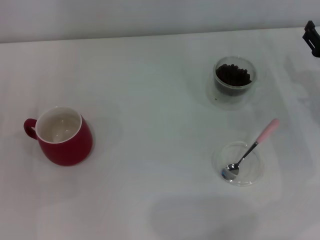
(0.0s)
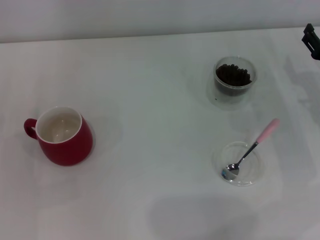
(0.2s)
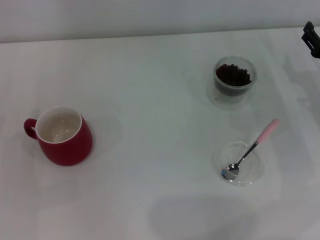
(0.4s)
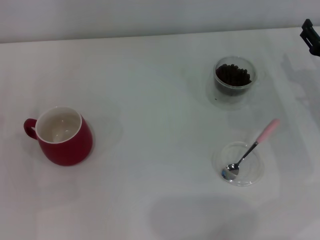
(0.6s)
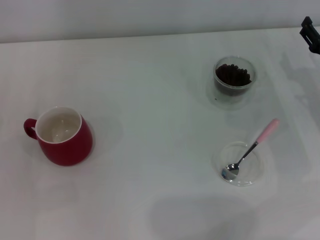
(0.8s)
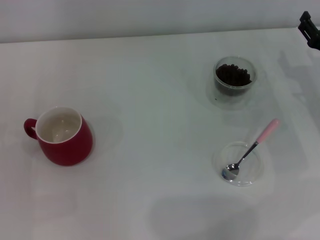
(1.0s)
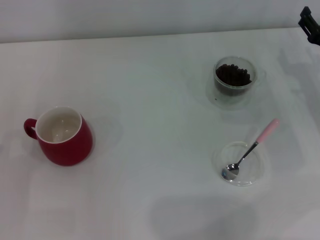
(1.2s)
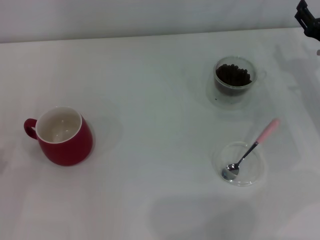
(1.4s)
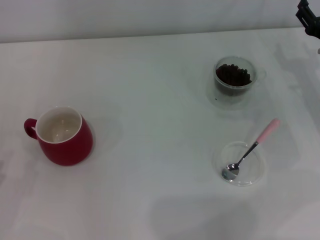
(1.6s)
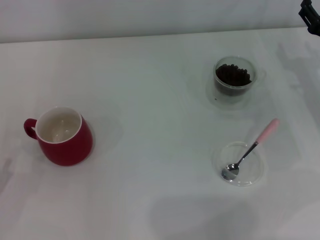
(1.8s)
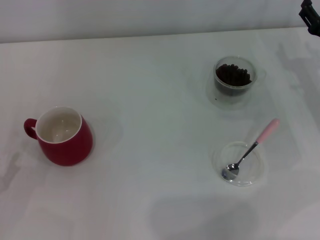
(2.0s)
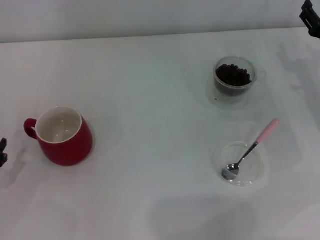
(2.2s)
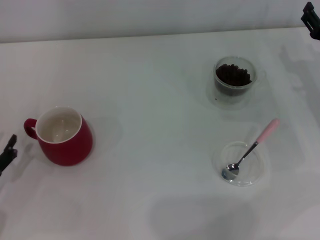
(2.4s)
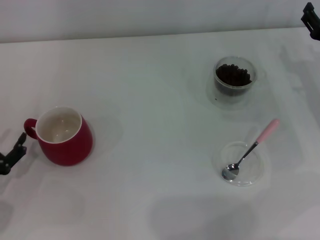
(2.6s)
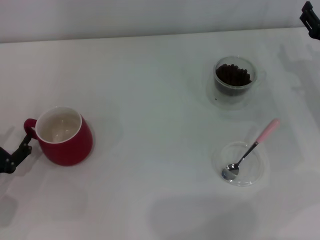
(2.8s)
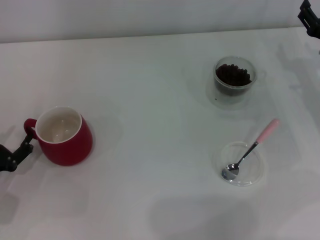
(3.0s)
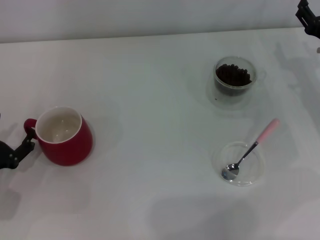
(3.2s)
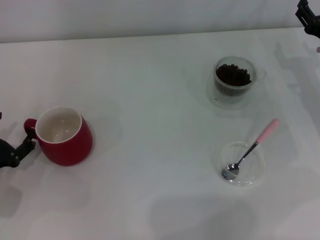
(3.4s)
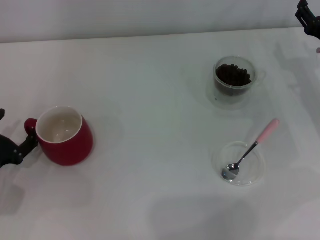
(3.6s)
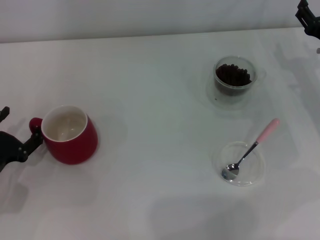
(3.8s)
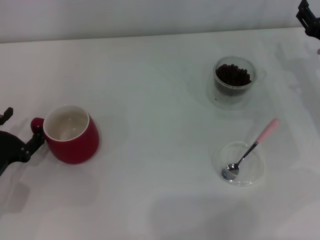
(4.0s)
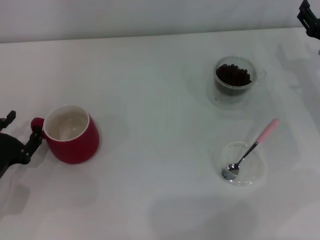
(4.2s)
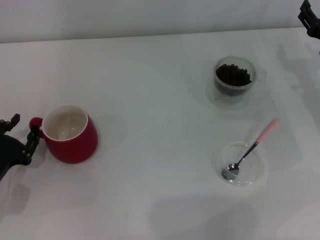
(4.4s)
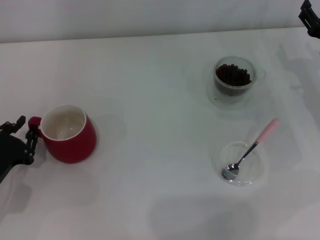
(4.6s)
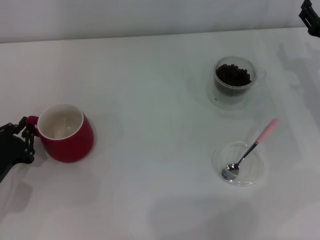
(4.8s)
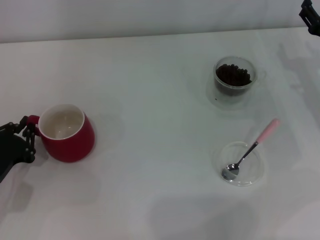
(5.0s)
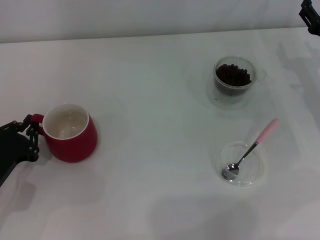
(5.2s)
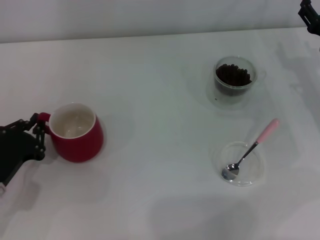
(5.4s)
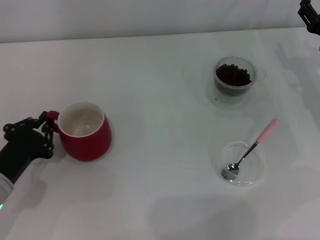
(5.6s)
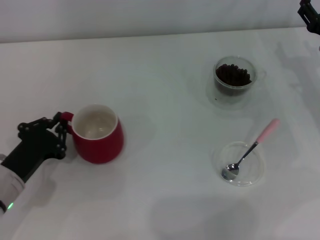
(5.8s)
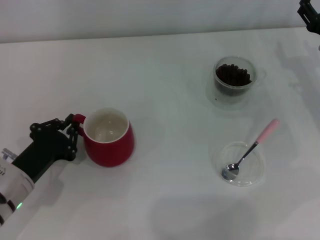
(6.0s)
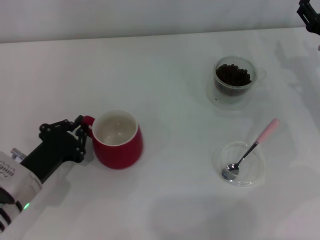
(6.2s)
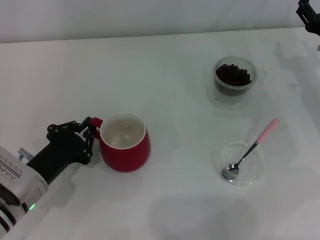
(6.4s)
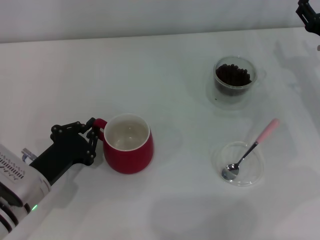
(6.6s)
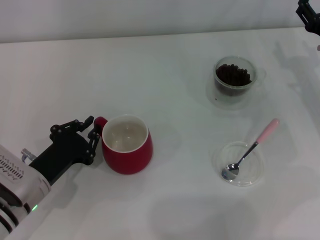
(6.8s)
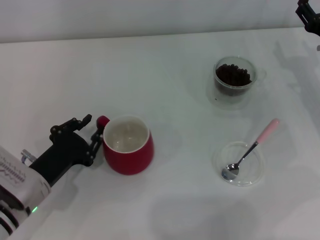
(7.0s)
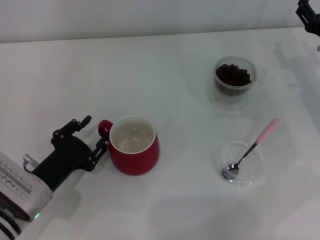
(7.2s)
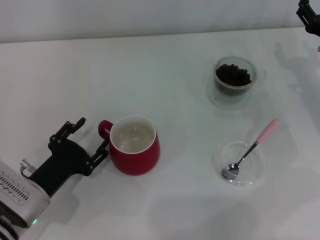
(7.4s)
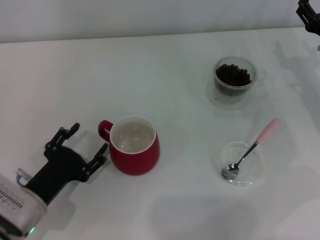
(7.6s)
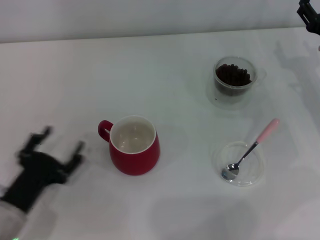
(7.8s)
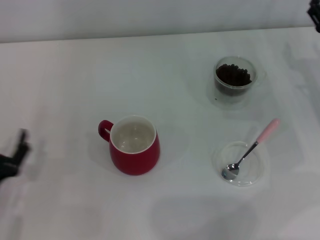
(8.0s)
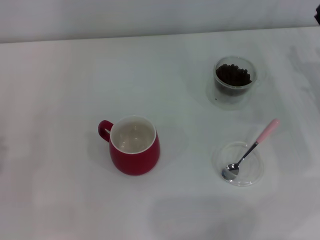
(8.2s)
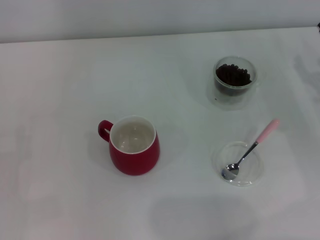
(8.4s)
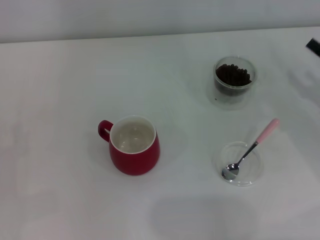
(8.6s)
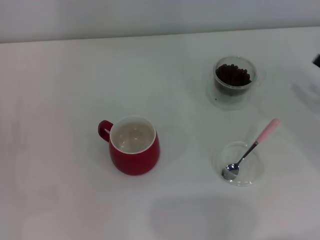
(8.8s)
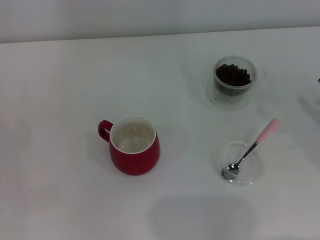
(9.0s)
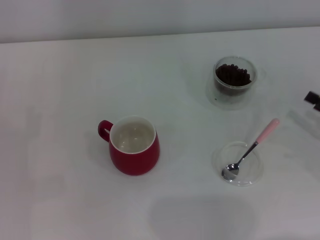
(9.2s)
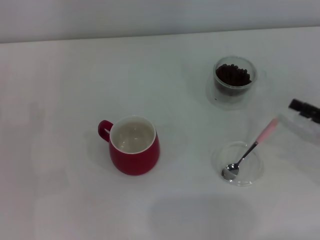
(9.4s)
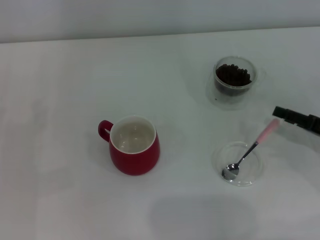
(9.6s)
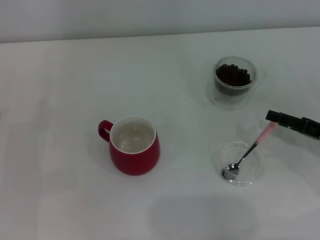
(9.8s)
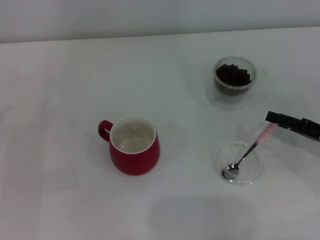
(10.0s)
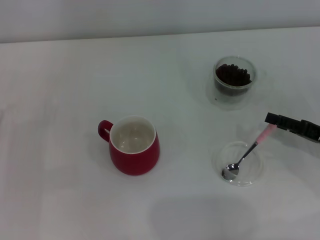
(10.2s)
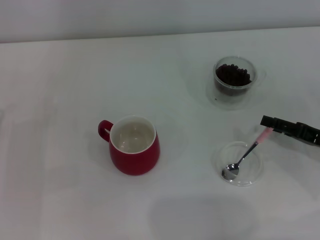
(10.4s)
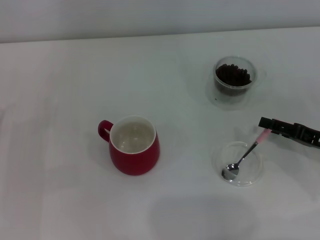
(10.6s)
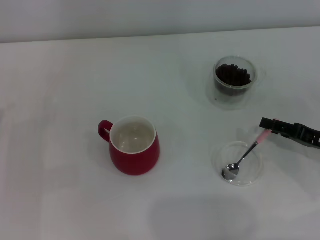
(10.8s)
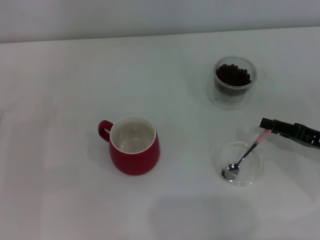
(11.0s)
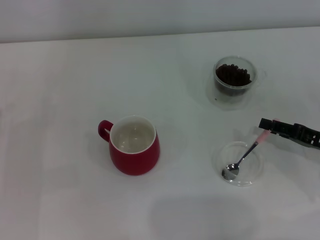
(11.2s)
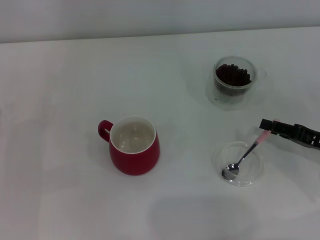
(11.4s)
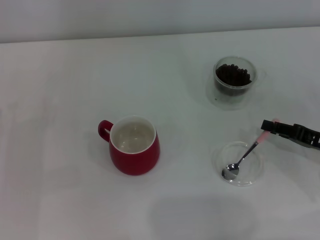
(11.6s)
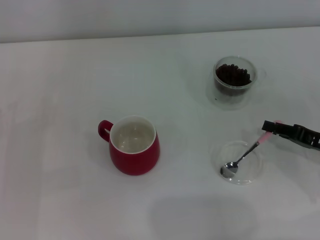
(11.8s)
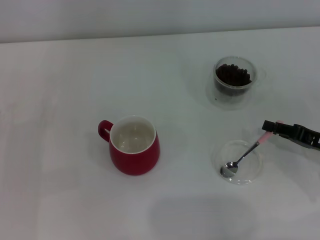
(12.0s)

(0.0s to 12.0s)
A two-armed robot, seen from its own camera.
Task of the whole recording: Use a pink spoon to take out the coffee beans from the glass and pour them into the red cup.
Step, 0.0s - 7.6s: Move the cup to the center of view with the left gripper.
1.6s - 3.0s: The left gripper heads forward, covering some 5 cm.
3.0s - 4.4s: The grippers make only small movements.
4.4s - 6.0s: The left gripper moves to the right, about 5 cm, and closes up.
6.0s - 7.6s: The left gripper opens up.
7.6s - 9.0s: The left gripper heads to the left, covering approximately 10 cm. The right gripper shifts some 15 cm backward and to the right.
9.0s - 10.4s: The right gripper moves some 5 cm.
10.4s - 12.0s: The right gripper closes up.

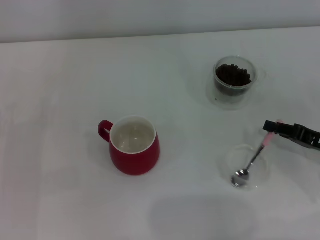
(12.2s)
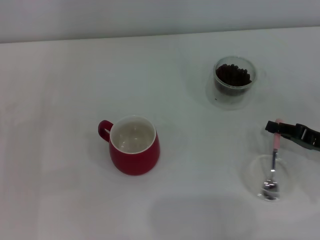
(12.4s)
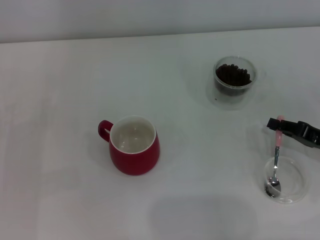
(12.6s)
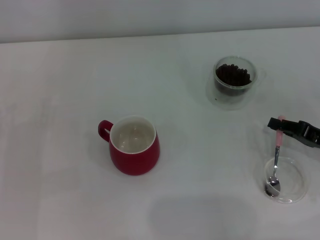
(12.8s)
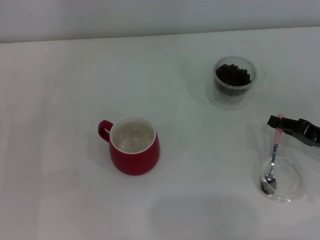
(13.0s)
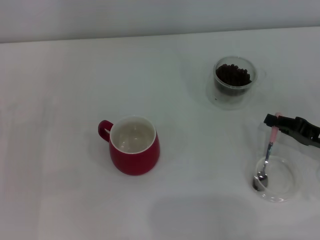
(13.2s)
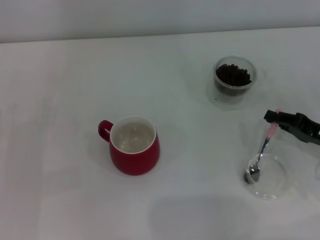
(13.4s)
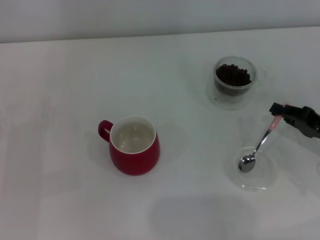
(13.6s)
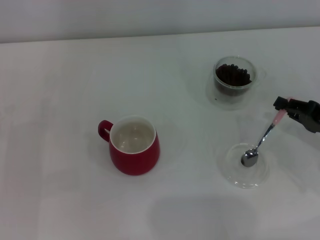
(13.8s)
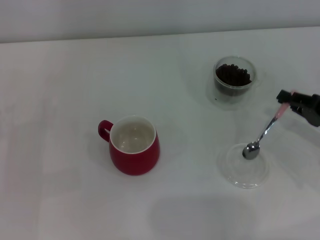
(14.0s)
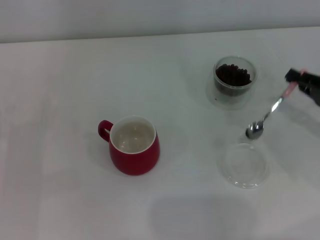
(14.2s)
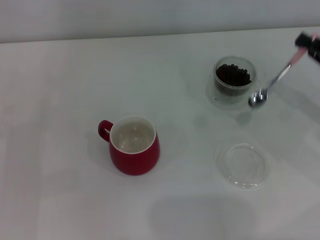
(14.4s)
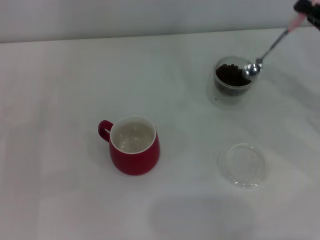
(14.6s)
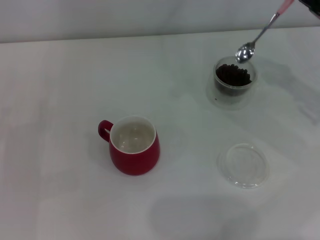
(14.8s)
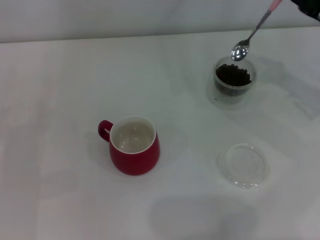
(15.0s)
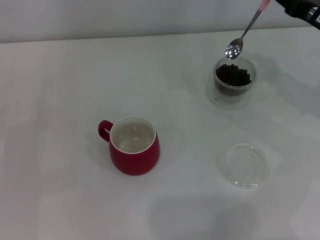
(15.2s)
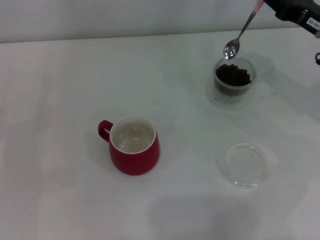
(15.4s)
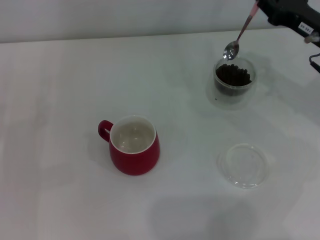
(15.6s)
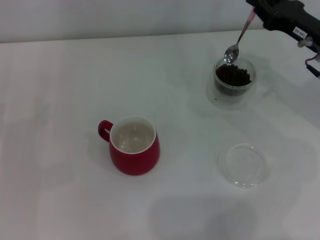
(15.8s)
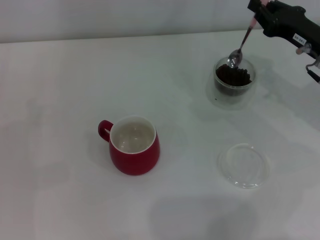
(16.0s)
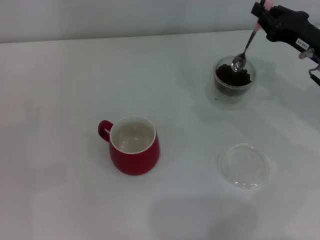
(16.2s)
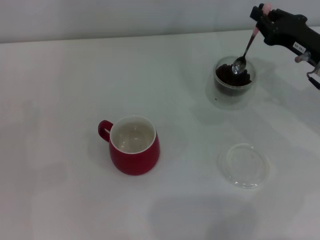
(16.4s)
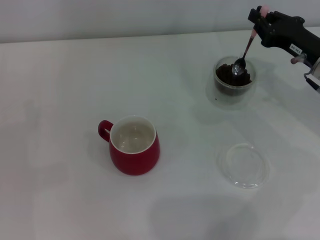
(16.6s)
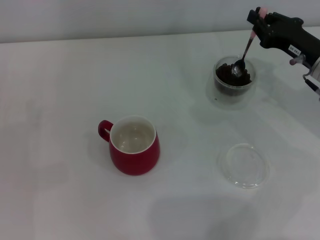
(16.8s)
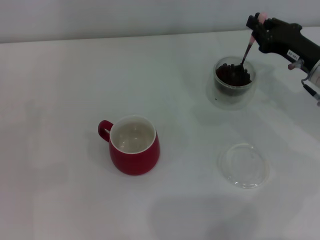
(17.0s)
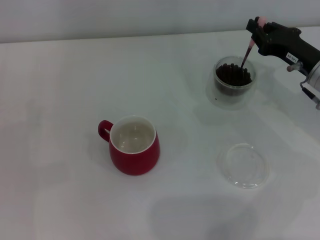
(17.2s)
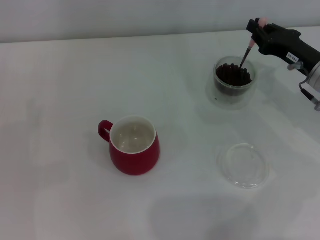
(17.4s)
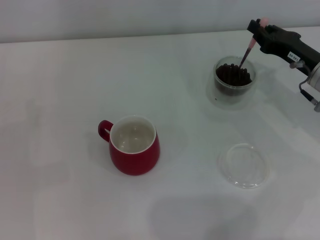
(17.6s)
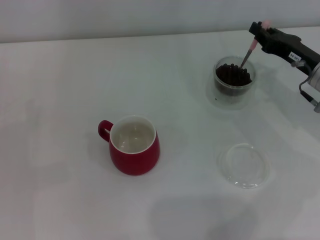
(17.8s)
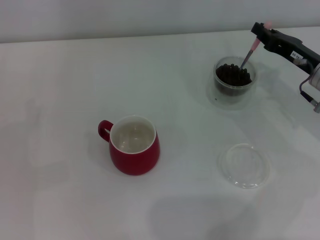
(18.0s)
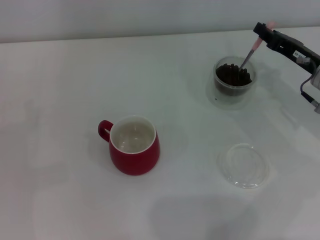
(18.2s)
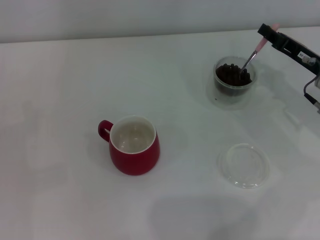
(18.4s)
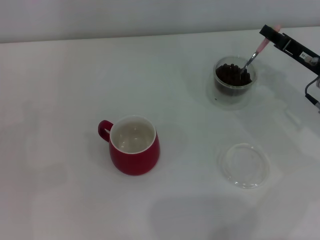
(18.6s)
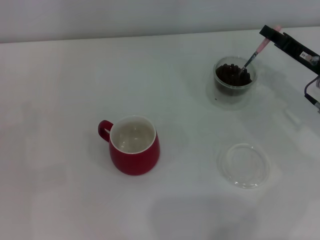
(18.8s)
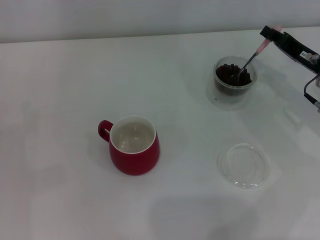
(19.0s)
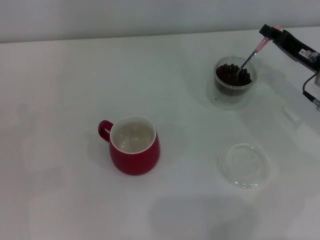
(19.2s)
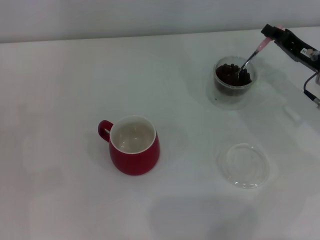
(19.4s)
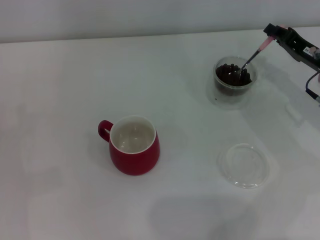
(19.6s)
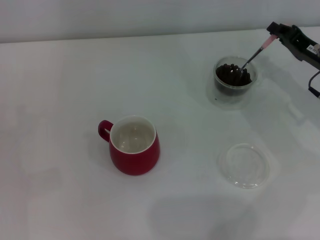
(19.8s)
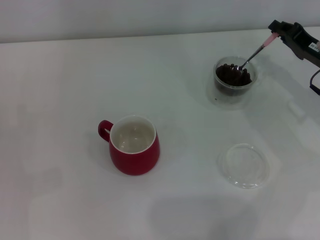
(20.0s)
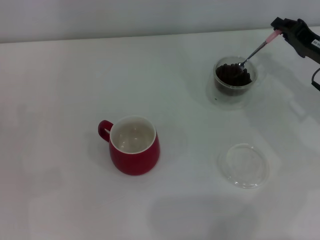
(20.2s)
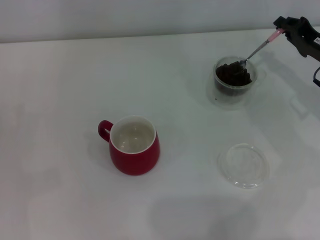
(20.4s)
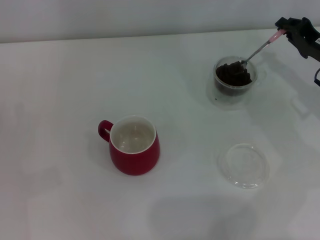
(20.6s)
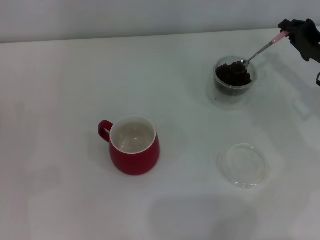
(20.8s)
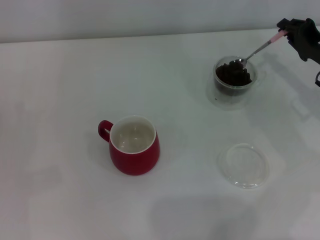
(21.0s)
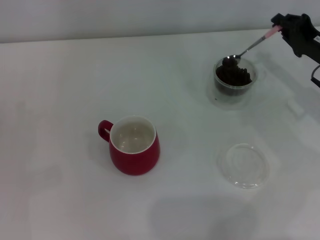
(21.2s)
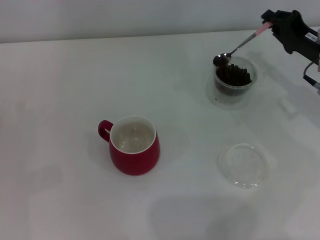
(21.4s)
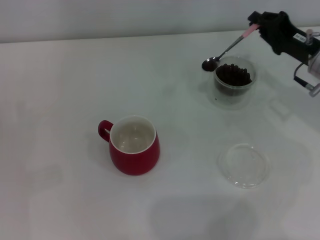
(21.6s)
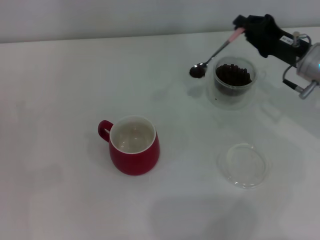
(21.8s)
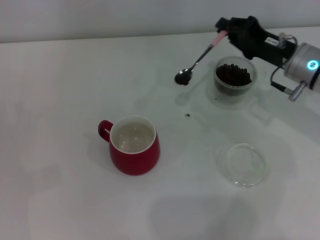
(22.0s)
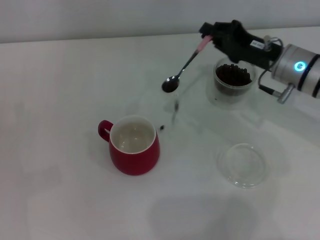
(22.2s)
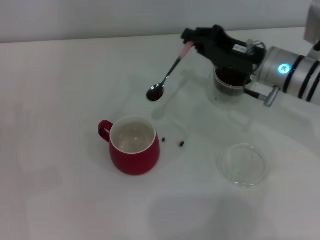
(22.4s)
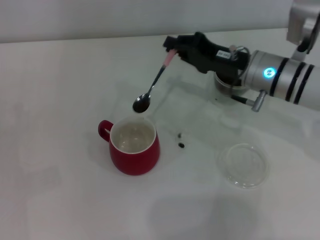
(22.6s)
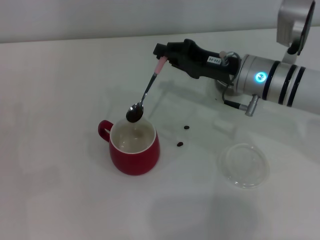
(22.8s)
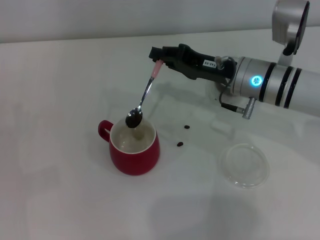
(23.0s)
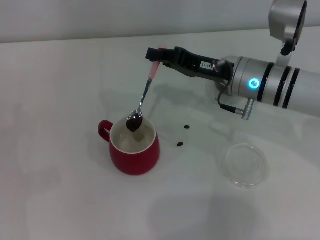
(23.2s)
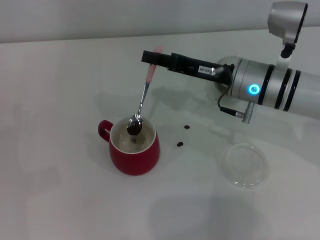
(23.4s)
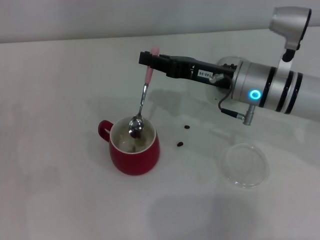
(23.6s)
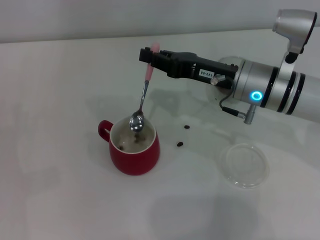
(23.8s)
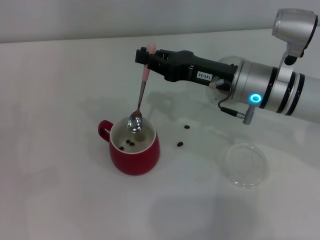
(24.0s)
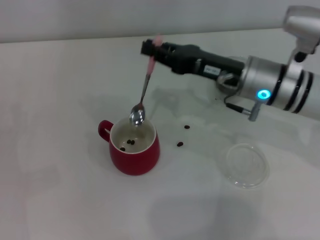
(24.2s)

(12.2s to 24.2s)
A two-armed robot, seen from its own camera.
Task of the whole recording: Use a pink spoon to take out the coffee beans from the glass and pour them into the red cup.
Step, 14.2s - 24.2s: Scoop a spoonful of beans into the cup with the right gripper.
12.2s - 13.8s: The grippers stay close to where they were, moving slightly.
13.8s - 15.2s: The right gripper heads forward and upward, covering approximately 15 cm.
19.8s - 21.2s: The grippers stay close to where they were, moving slightly.
21.2s - 22.6s: The right gripper travels to the left by some 15 cm.
